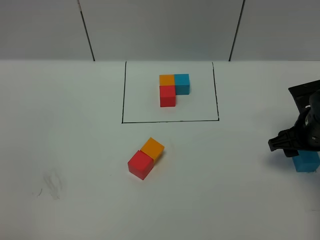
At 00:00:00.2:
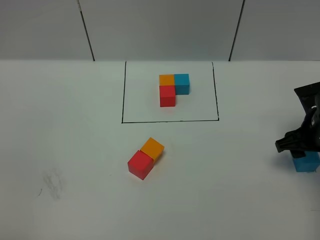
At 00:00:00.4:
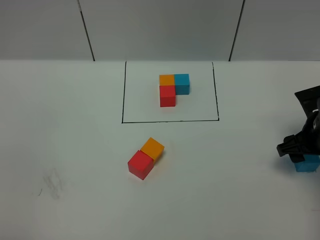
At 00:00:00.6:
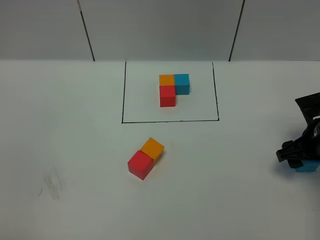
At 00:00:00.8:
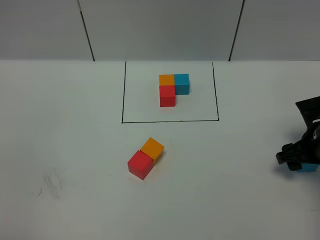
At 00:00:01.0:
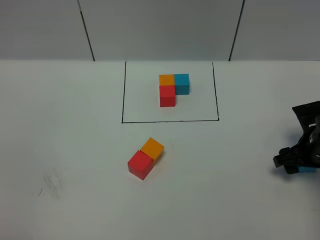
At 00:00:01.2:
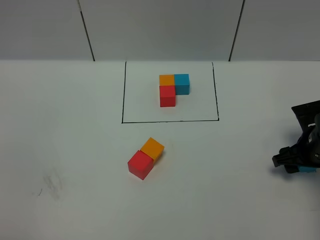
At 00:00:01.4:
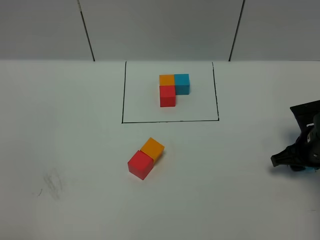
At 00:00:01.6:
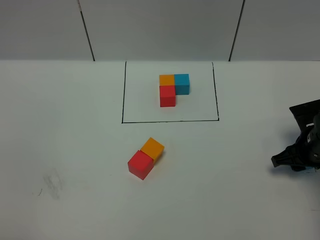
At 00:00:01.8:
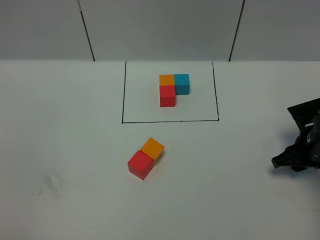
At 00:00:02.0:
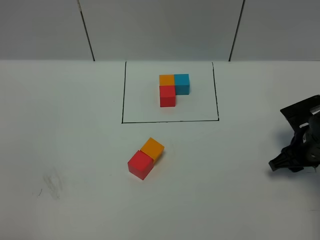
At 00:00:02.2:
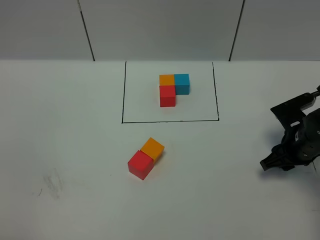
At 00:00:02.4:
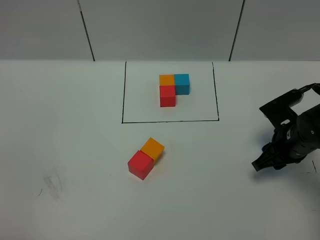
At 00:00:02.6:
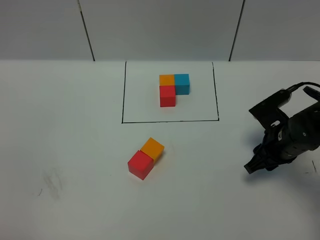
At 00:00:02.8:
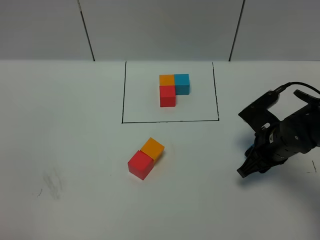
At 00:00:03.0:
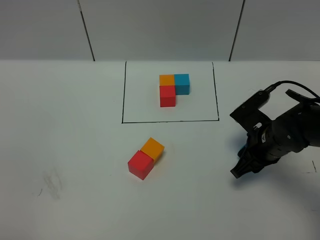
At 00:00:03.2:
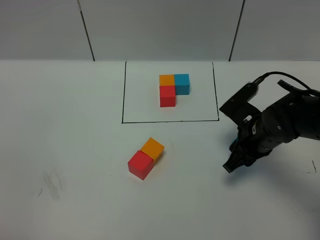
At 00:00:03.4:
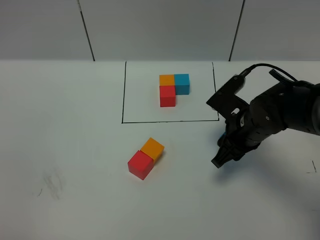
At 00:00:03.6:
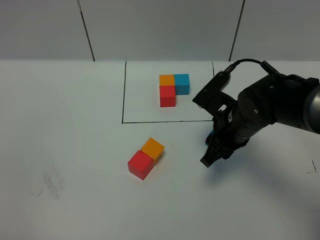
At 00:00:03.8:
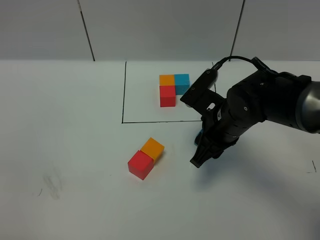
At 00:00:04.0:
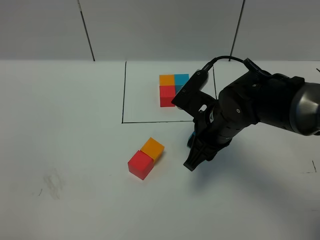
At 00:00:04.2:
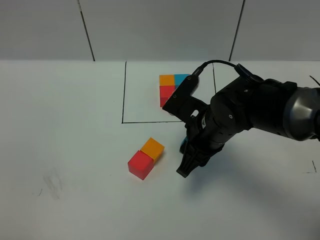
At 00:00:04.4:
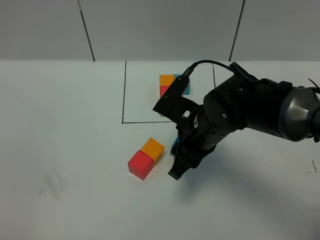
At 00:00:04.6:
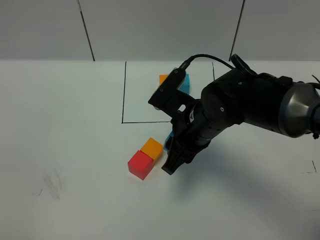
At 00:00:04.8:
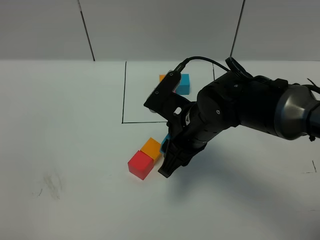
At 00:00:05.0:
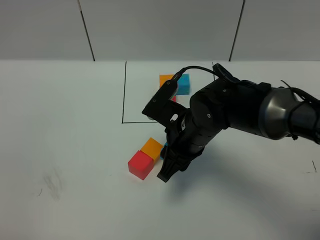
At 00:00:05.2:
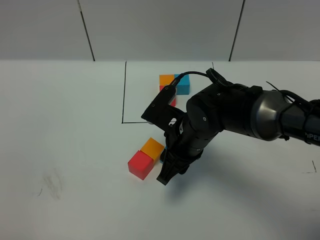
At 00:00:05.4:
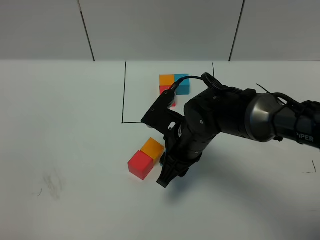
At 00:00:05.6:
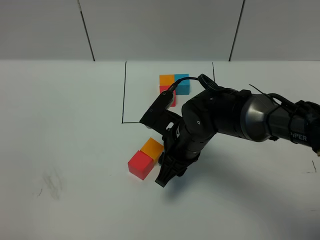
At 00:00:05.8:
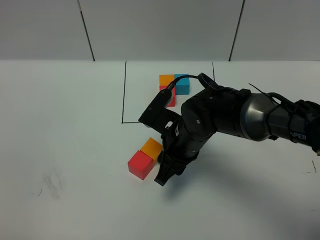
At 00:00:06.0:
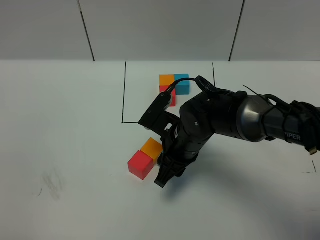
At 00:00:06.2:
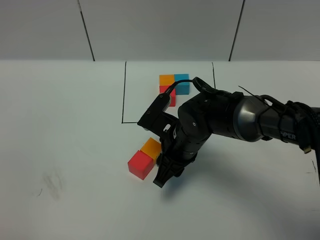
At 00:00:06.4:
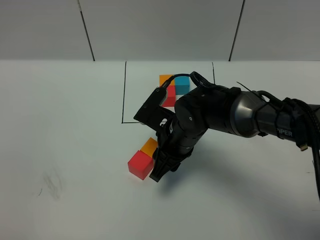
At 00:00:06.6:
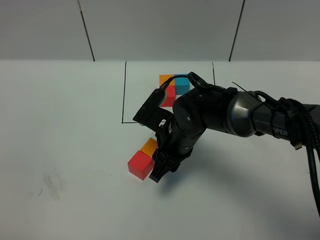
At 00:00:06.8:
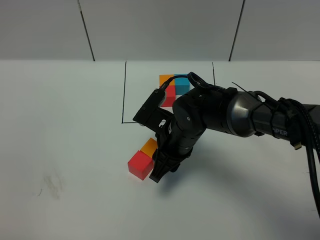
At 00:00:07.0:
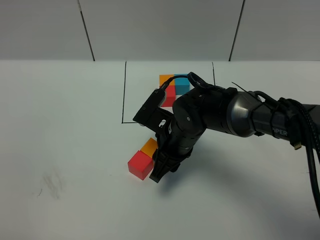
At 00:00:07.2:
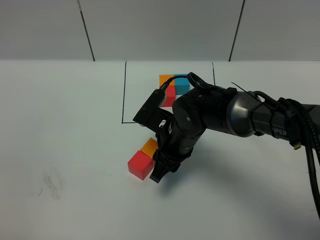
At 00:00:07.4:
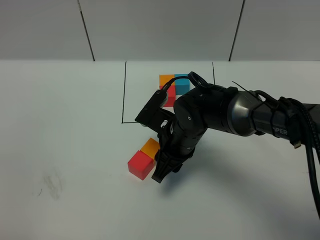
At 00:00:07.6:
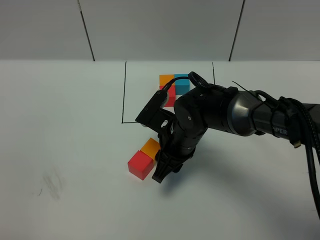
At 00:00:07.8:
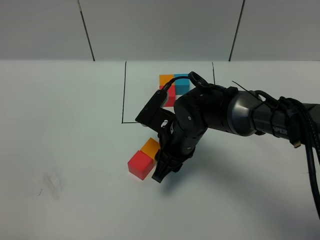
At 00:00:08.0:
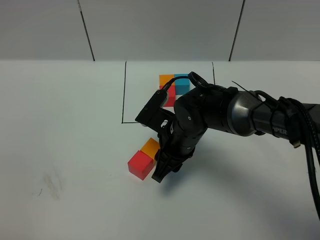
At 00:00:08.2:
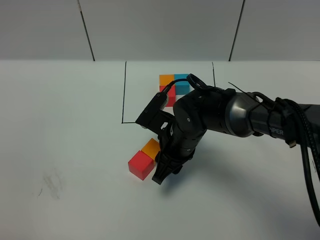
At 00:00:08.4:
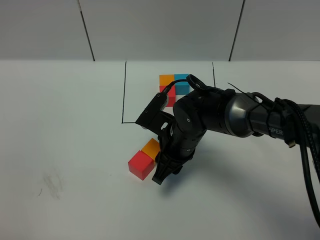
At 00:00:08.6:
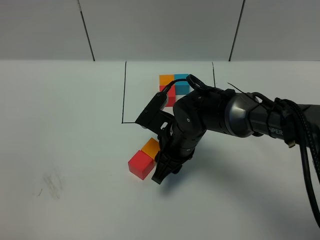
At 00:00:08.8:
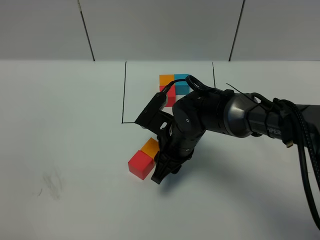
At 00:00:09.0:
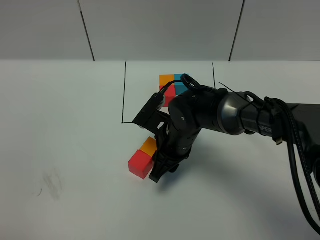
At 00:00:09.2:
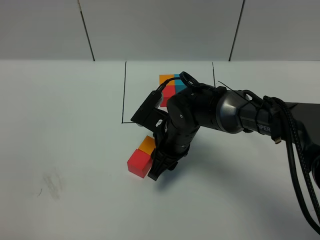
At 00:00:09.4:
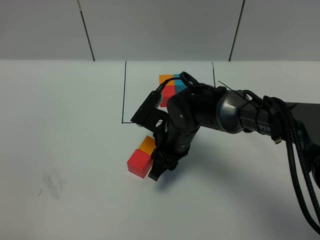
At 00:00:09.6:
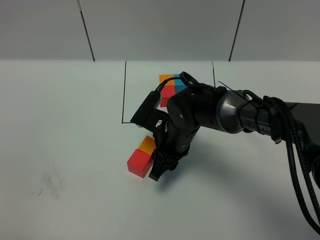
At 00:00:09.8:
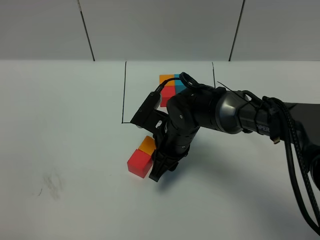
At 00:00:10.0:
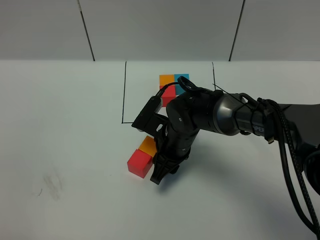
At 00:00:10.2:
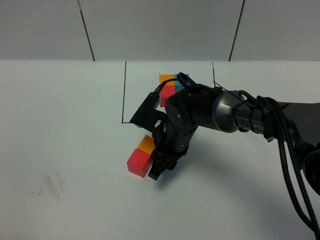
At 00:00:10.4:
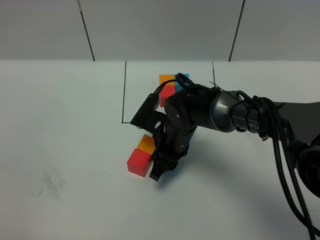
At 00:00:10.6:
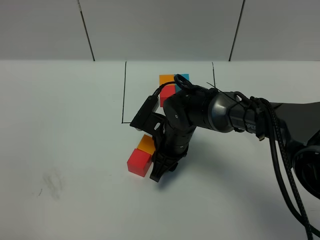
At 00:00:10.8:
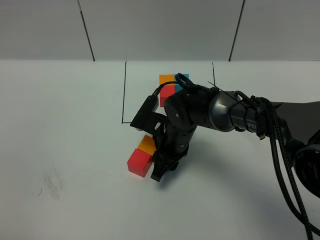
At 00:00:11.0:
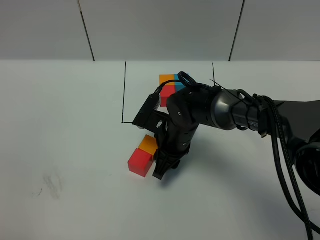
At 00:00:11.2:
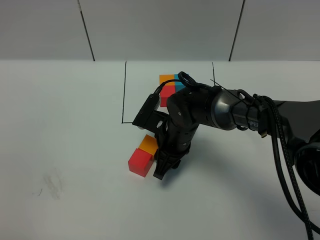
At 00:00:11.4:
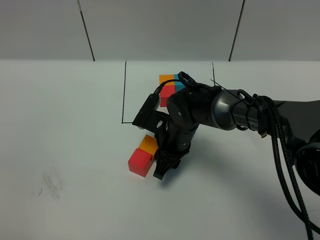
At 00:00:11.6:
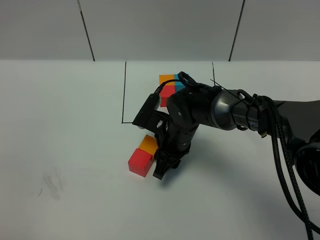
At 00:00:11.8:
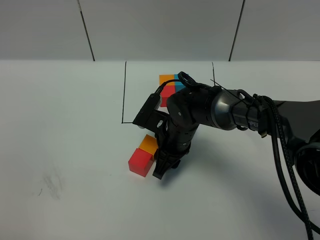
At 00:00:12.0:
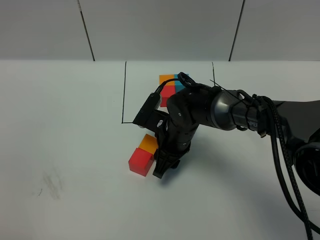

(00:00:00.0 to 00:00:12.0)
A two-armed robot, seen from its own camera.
Task of the whole recording: According to the building block template in front, assemble the scattered blocks together.
00:00:00.0 - 00:00:01.6: The right gripper goes approximately 5 cm downward.
00:00:01.6 - 00:00:03.0: The right gripper is displaced to the left by some 10 cm.
00:00:03.0 - 00:00:04.4: The right gripper heads to the left and upward, covering about 15 cm.
00:00:04.4 - 00:00:06.0: The right gripper heads downward, covering some 5 cm.
00:00:06.0 - 00:00:10.4: The grippers make only small movements.
00:00:10.4 - 00:00:12.0: Neither gripper changes place.

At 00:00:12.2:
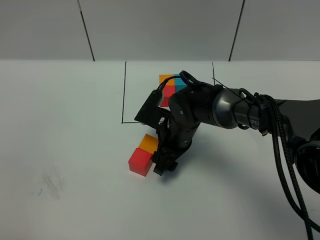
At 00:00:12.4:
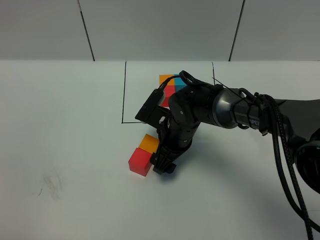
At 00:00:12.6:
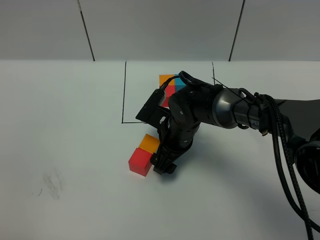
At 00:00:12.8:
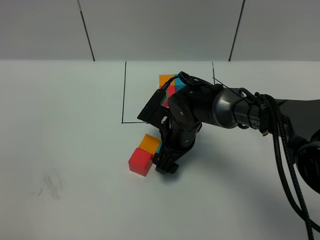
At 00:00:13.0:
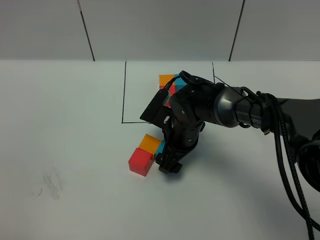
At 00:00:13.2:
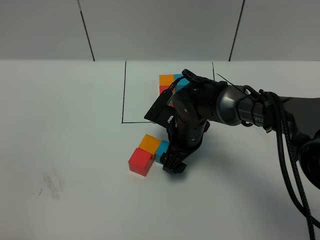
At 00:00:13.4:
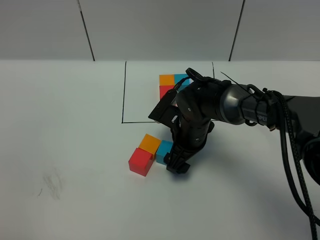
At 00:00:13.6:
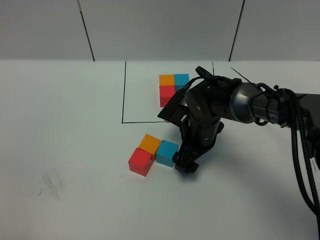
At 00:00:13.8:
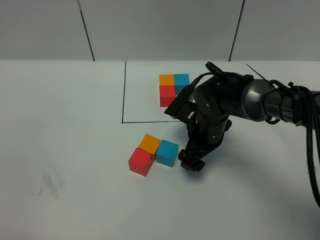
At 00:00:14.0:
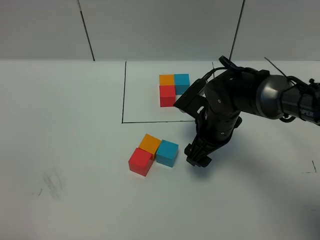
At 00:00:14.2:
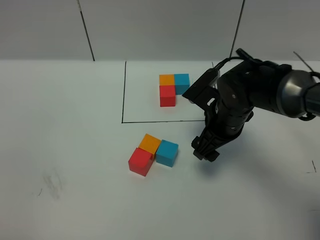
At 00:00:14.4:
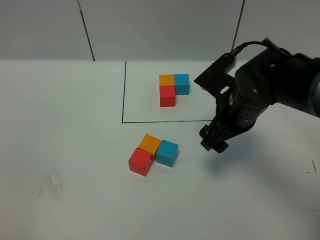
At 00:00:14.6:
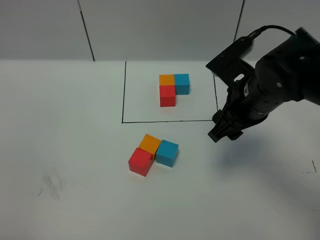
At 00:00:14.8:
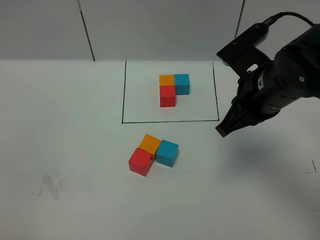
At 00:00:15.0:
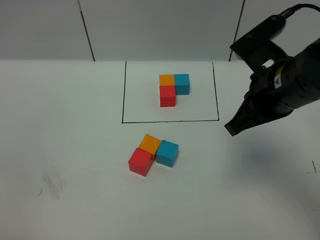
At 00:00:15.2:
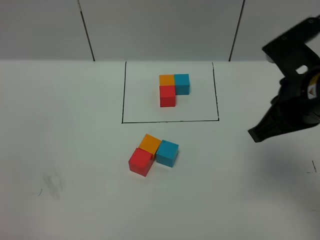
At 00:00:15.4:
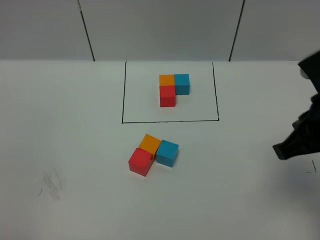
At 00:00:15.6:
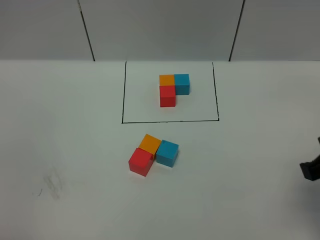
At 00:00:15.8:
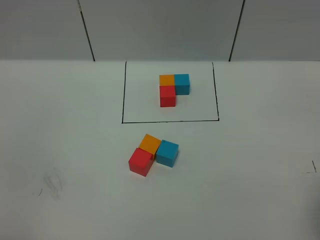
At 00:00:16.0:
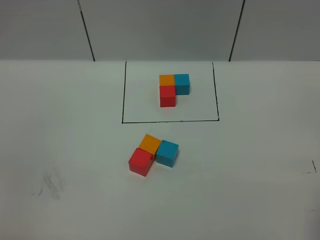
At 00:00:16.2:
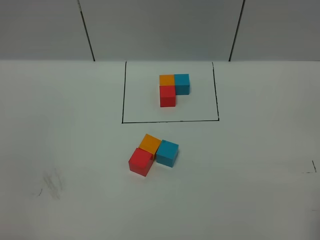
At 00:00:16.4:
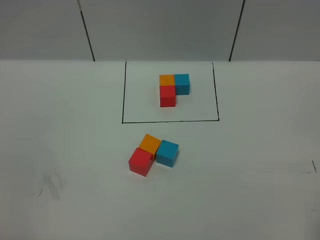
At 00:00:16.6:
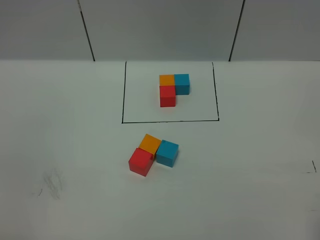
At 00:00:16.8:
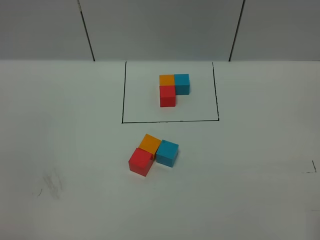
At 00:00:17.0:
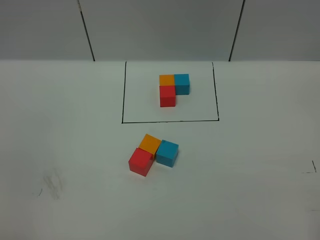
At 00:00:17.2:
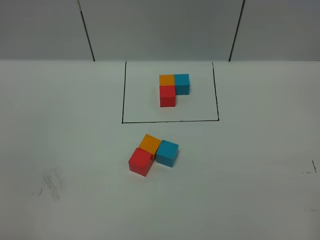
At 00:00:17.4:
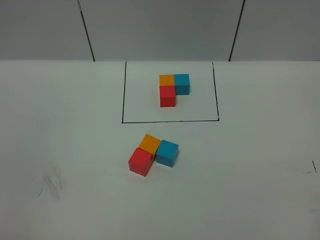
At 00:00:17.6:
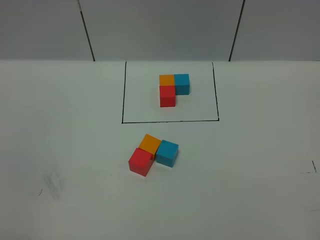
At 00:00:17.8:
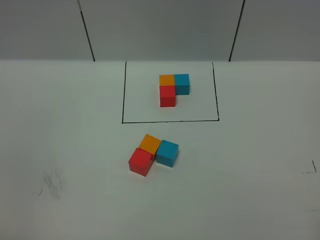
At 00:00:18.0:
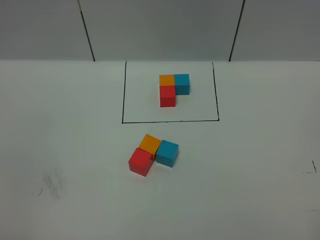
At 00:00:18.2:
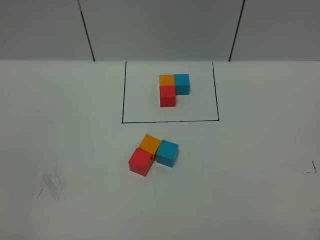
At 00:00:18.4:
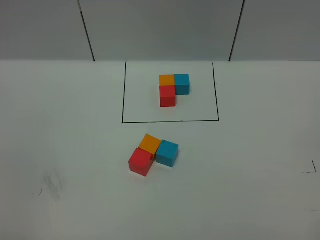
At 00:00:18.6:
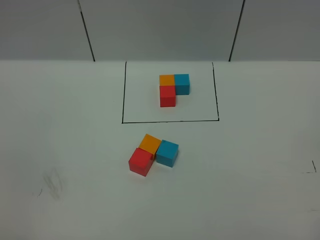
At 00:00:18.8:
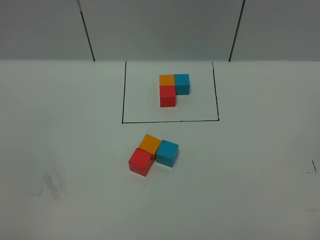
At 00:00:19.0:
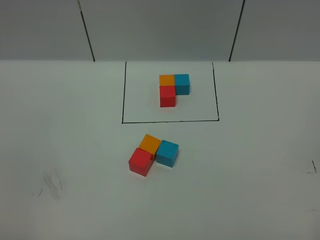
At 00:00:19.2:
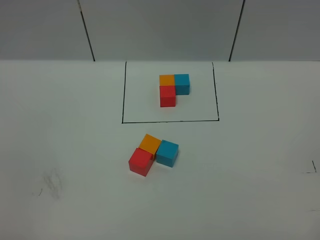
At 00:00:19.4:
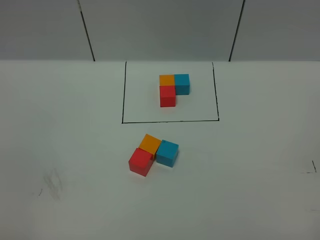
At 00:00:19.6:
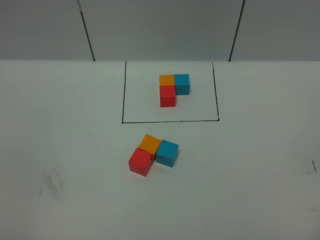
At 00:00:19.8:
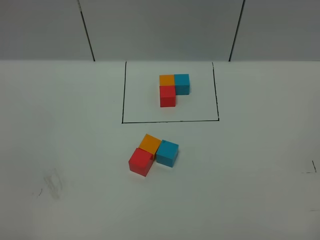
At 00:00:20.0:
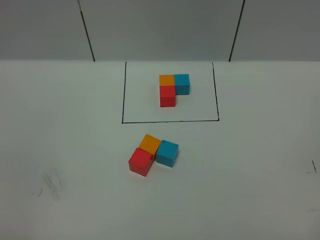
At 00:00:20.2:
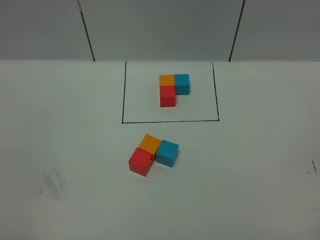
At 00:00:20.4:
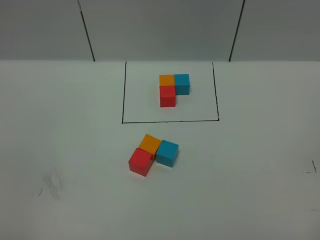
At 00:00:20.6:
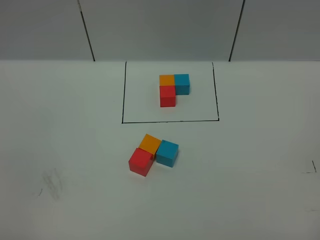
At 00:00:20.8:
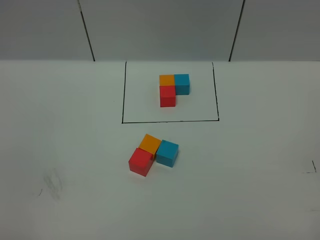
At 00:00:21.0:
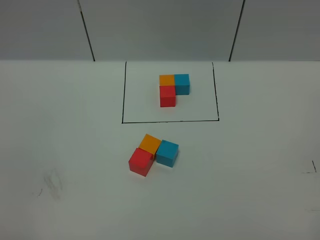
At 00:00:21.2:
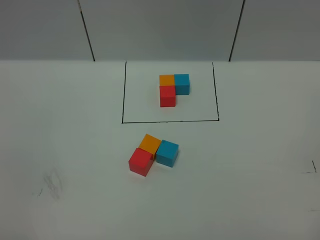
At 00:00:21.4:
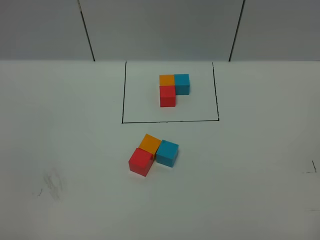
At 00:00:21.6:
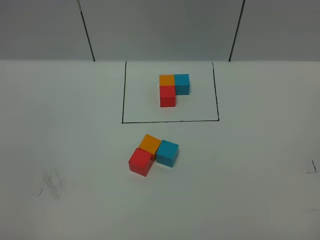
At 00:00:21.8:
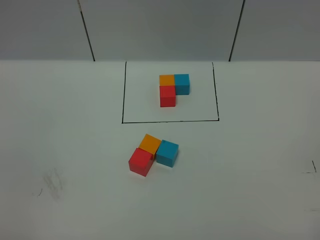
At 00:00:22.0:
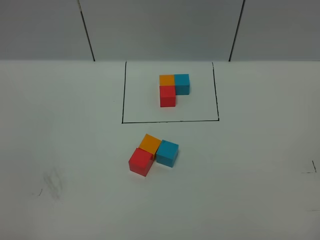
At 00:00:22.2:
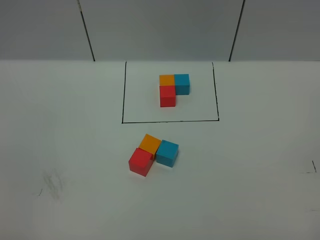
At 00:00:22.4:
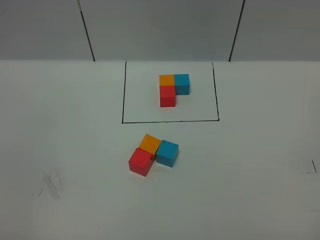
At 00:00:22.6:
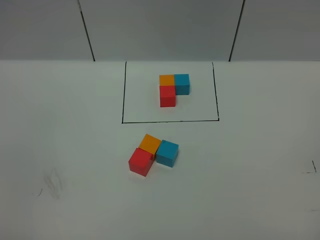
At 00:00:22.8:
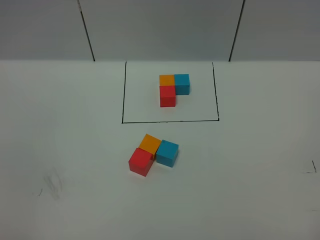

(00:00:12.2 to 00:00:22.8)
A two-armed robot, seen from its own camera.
Task of the whole recording: According to the building block template in front, assemble the scattered blocks together.
00:00:12.2 - 00:00:13.8: The right gripper shifts some 5 cm to the right.
00:00:13.8 - 00:00:15.2: The right gripper travels upward, backward and to the right by some 25 cm, and closes.
00:00:15.2 - 00:00:16.8: The right gripper goes about 15 cm backward and to the right.
00:00:19.8 - 00:00:22.8: Neither gripper changes place.
